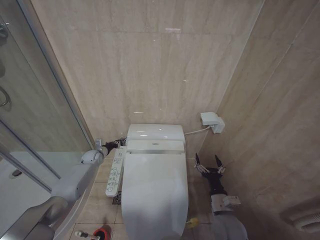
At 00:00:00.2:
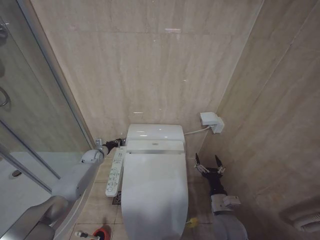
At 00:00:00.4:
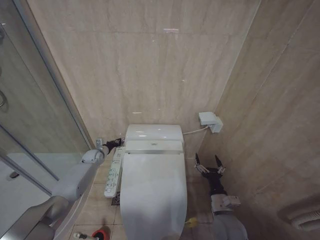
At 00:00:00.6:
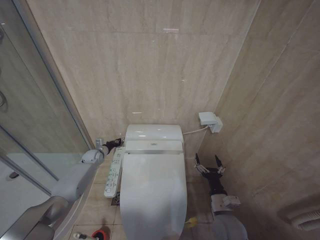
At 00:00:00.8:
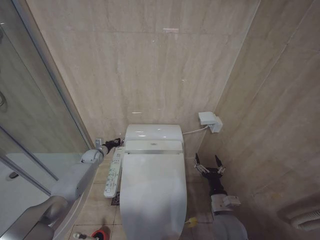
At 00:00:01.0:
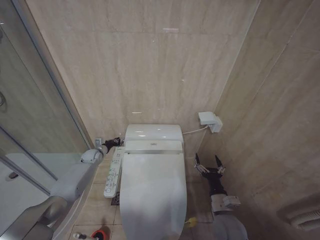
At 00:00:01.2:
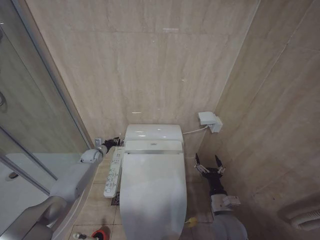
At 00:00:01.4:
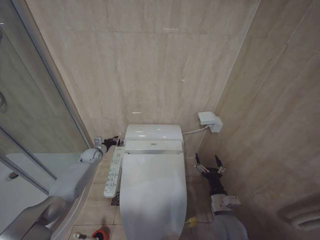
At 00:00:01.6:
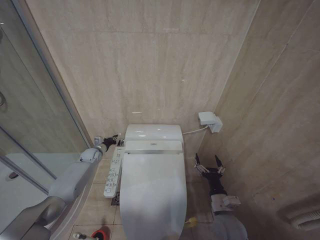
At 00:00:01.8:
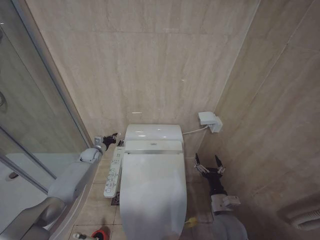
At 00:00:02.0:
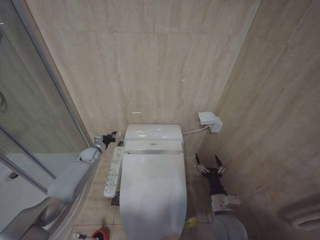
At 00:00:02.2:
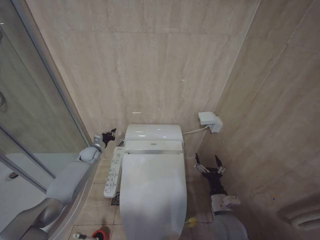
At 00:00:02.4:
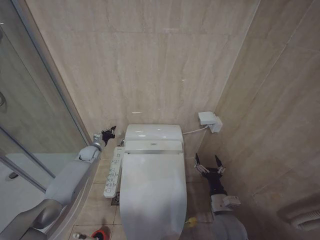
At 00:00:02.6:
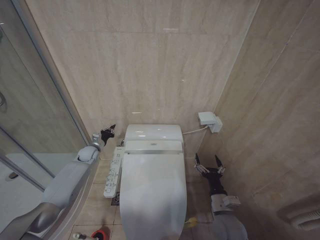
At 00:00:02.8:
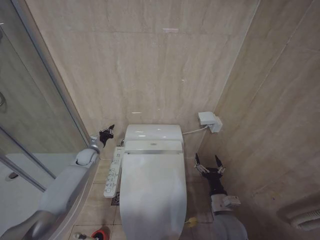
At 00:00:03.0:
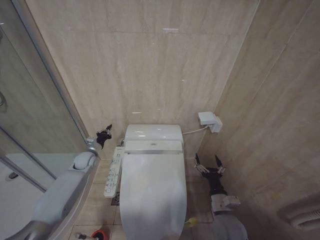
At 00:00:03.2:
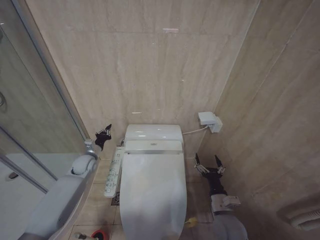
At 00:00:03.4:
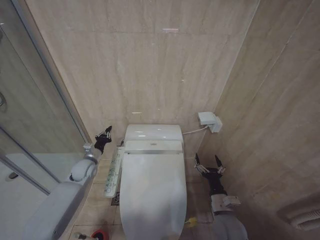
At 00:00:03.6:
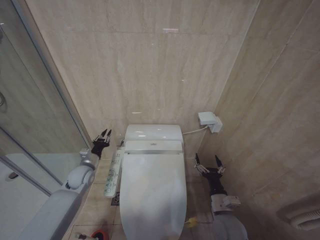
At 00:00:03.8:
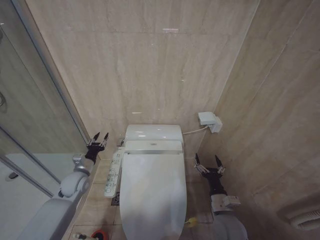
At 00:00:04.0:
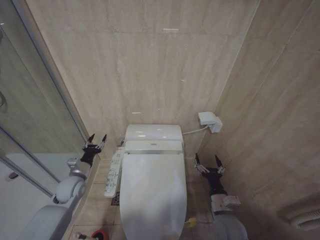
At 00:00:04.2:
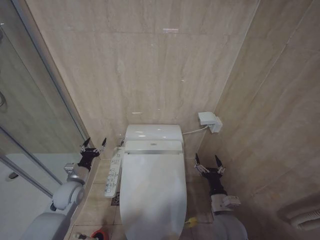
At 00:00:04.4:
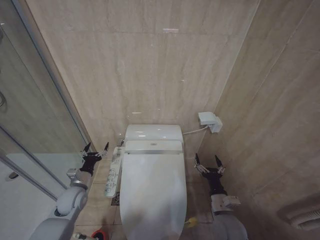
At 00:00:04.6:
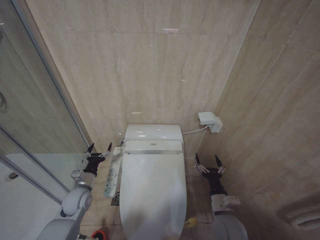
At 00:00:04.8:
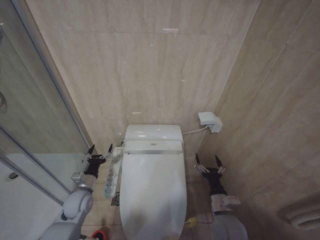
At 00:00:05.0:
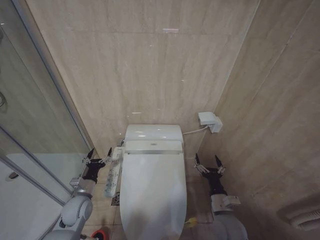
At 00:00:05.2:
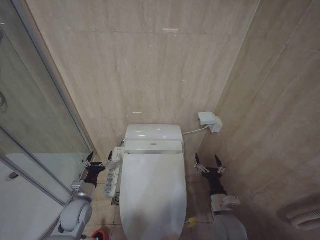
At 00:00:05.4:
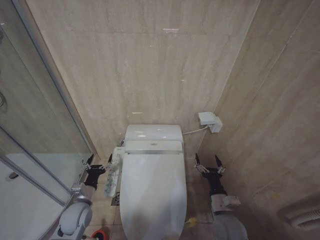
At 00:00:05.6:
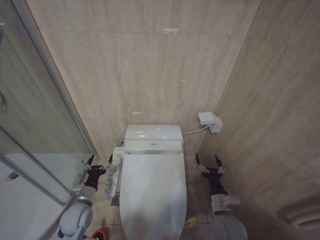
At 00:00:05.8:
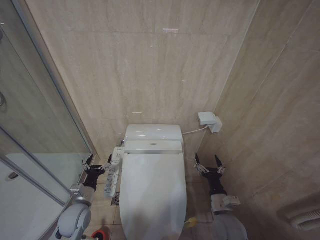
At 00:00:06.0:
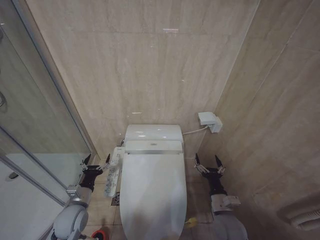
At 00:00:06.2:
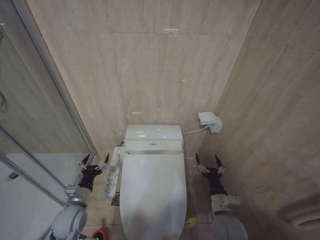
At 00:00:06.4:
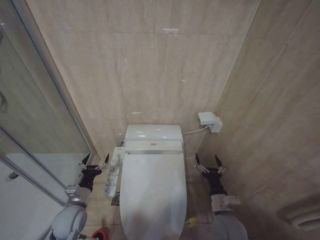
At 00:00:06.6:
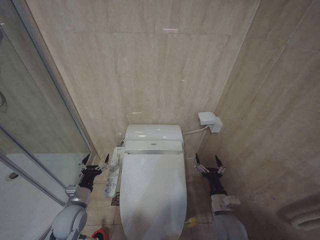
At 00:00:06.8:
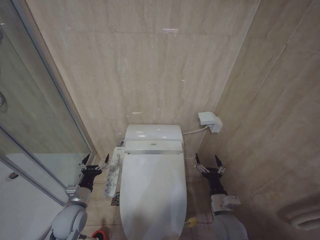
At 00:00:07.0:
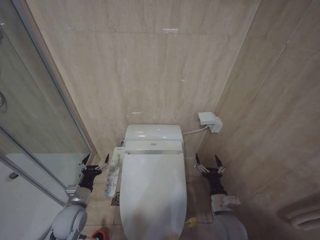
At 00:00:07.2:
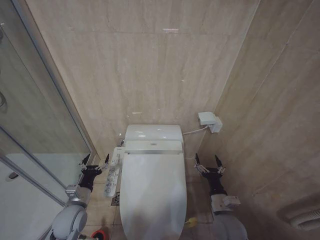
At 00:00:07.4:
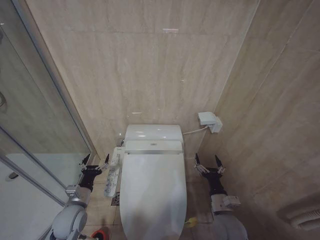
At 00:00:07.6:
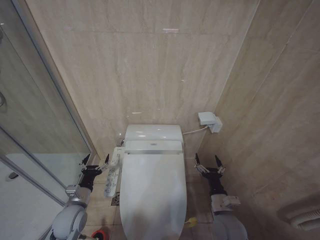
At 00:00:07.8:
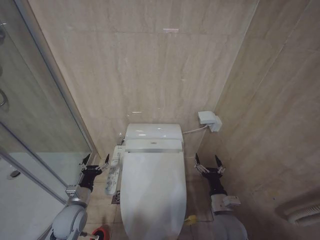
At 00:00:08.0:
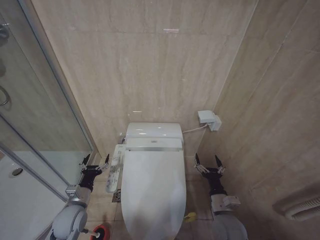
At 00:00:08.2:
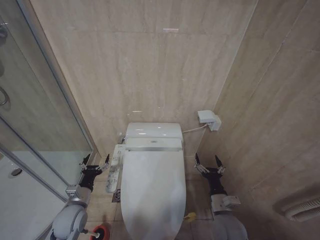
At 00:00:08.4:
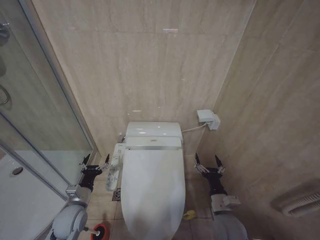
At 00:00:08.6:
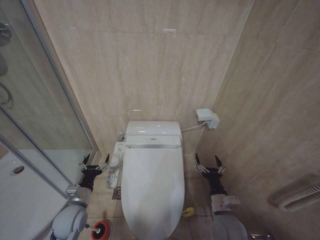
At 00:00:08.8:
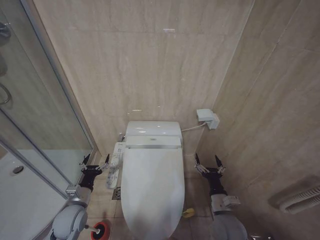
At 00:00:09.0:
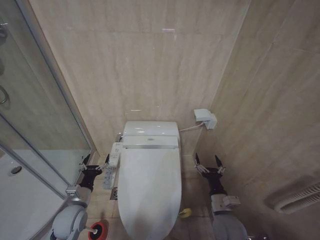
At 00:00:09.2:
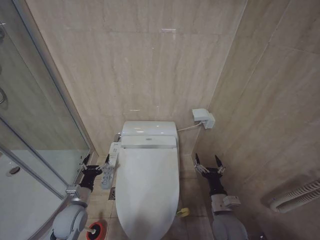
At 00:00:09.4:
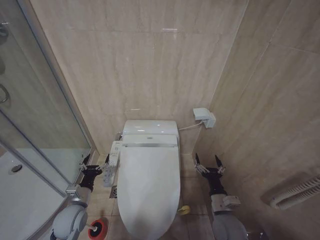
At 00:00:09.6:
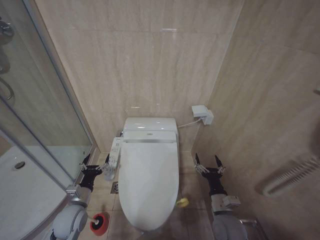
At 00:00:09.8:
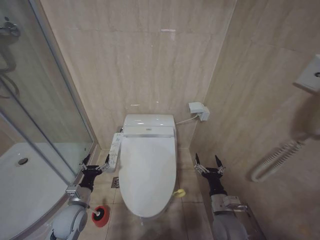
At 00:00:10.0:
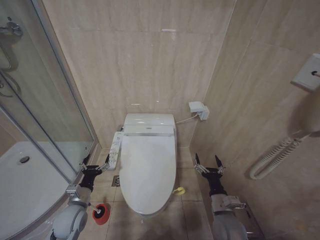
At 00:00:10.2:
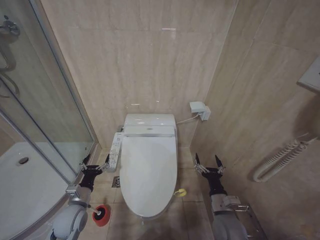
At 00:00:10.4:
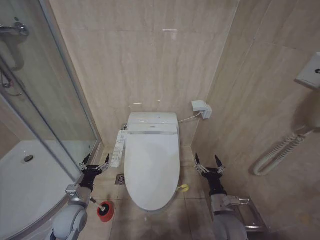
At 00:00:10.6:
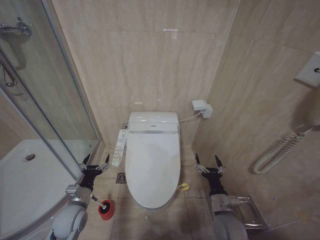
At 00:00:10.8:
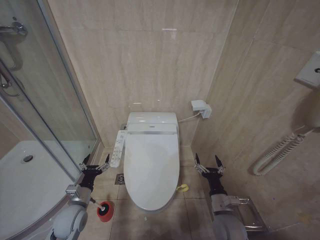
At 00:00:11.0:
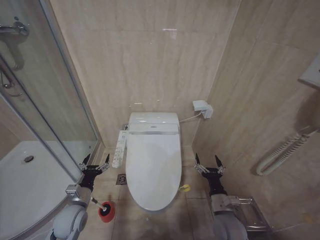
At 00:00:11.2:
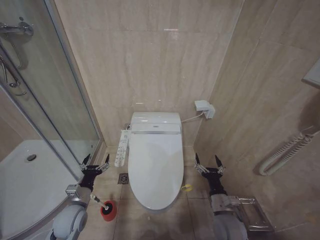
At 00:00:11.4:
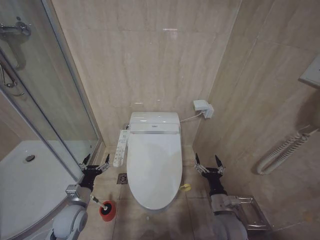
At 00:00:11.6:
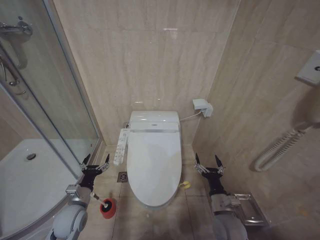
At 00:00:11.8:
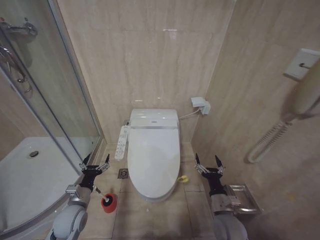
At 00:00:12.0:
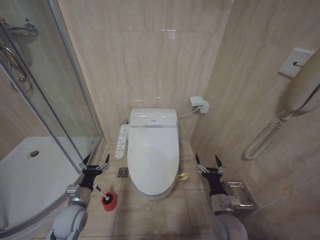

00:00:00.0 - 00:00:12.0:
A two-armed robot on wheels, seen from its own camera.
Task of the whole recording: Open the toilet lid, clean the toilet bowl with a toilet brush, close the toilet lid, and flush.
00:00:00.0 - 00:00:01.6: The grippers move only a little.
00:00:01.6 - 00:00:03.0: The left gripper heads backward, covering about 5 cm.
00:00:03.0 - 00:00:04.4: The left gripper moves backward, roughly 15 cm, and opens.
00:00:04.4 - 00:00:06.0: The left gripper heads backward, covering some 5 cm.
00:00:06.0 - 00:00:12.0: Neither gripper changes place.

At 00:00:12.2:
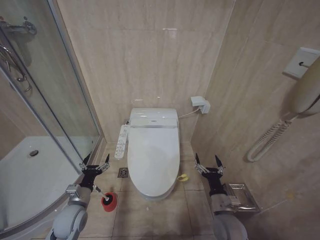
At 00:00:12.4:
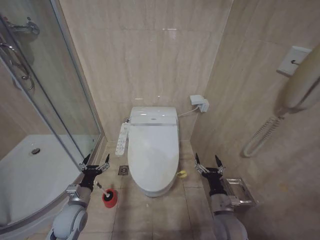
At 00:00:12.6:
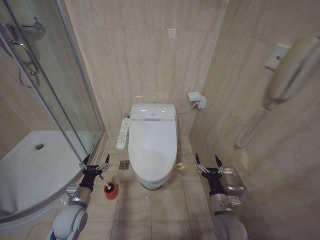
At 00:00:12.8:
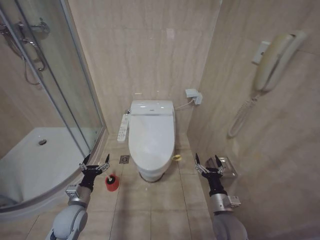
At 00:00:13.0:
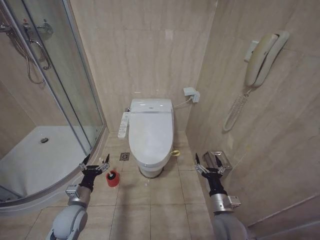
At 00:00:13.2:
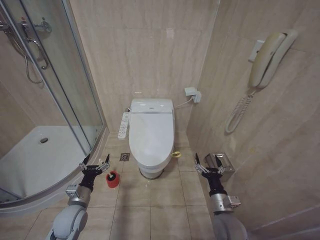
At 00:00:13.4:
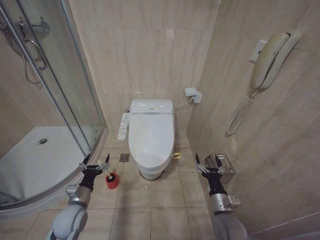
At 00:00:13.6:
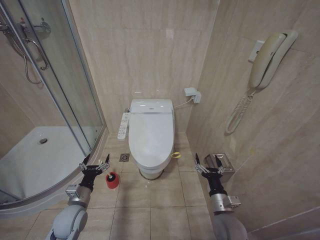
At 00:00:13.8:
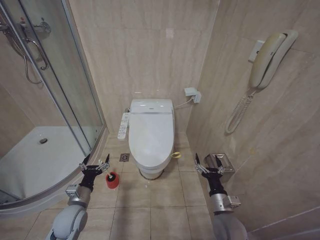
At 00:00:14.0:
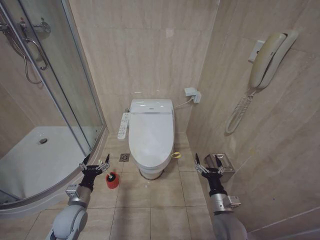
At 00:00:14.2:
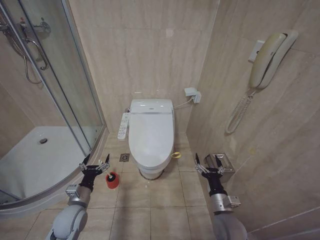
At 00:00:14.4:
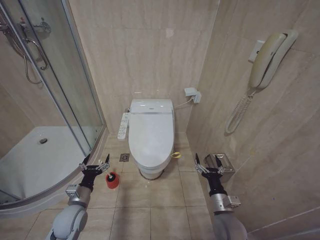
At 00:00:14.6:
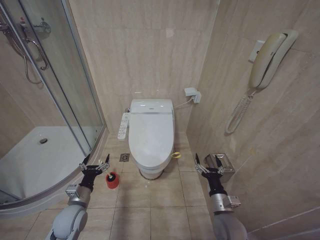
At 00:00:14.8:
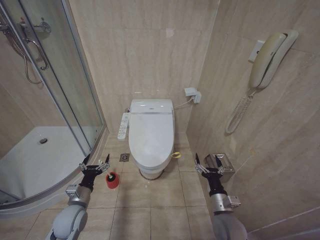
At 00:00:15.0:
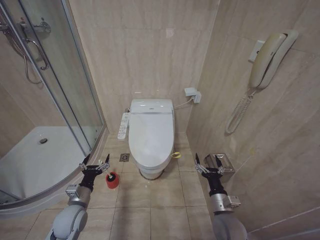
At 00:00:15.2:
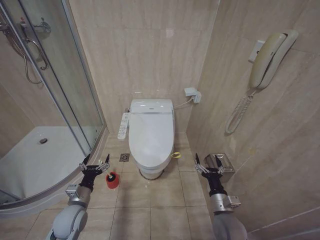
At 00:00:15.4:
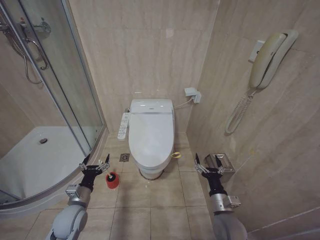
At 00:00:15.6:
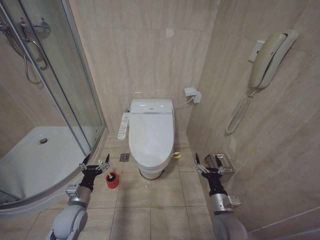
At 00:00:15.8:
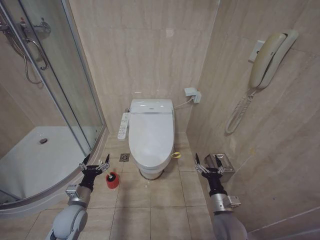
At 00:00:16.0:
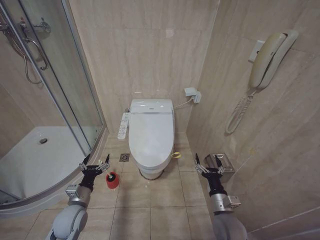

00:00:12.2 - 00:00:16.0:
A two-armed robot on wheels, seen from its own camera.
Task of the whole recording: Open the toilet lid, clean the toilet bowl with a toilet brush, close the toilet lid, and flush.
00:00:12.2 - 00:00:16.0: Neither gripper changes place.
